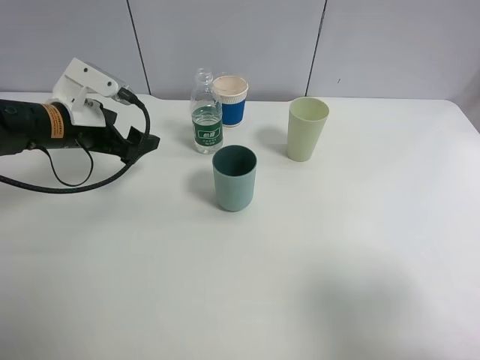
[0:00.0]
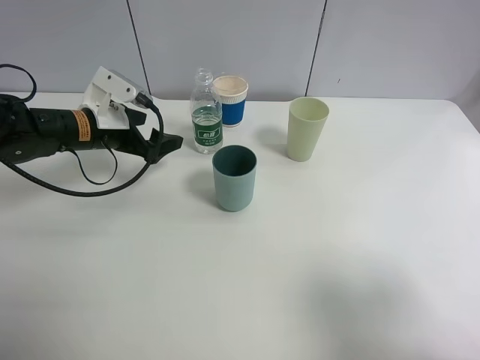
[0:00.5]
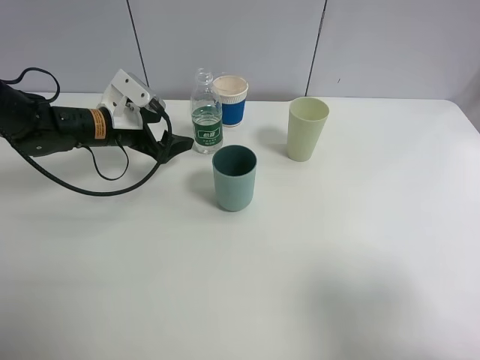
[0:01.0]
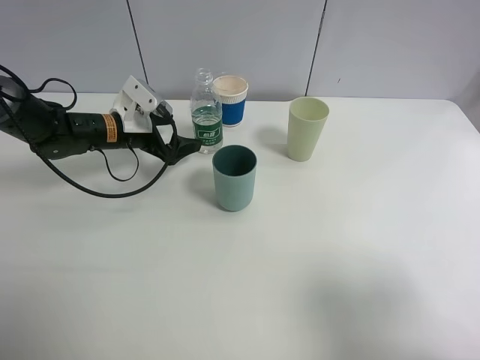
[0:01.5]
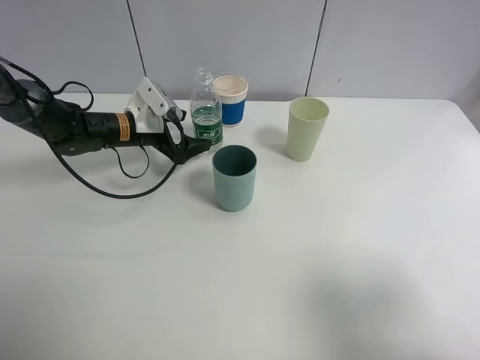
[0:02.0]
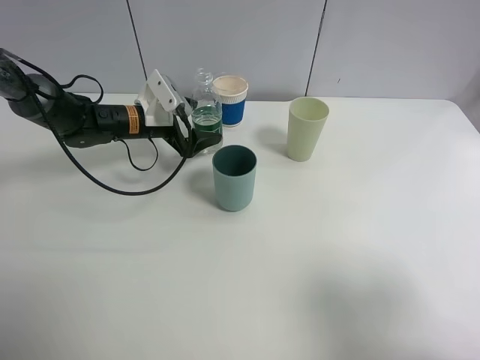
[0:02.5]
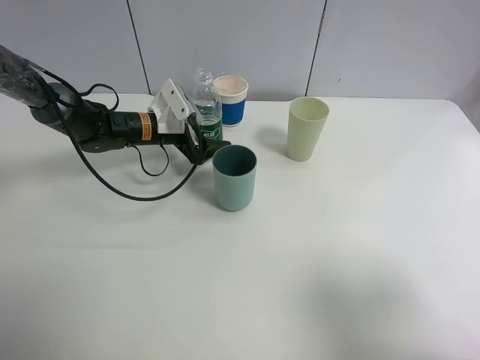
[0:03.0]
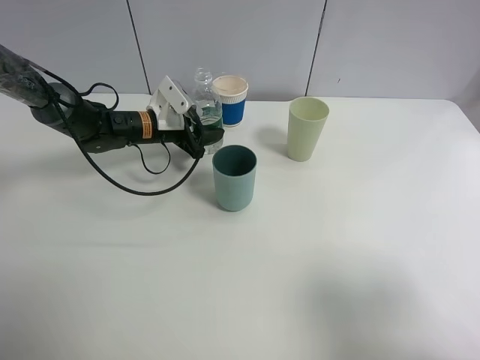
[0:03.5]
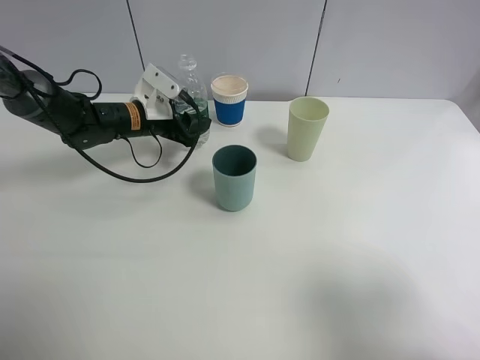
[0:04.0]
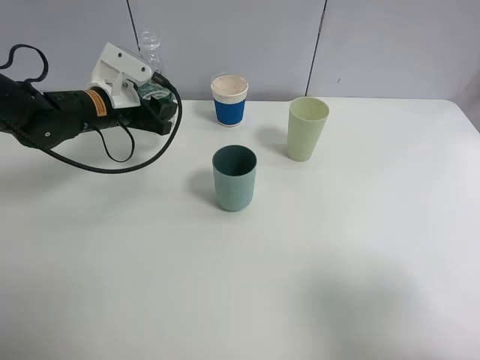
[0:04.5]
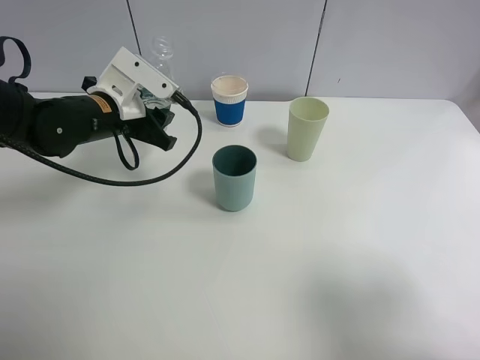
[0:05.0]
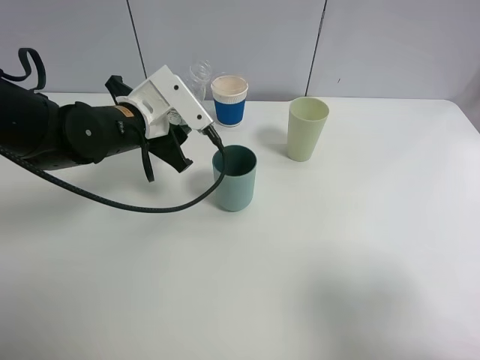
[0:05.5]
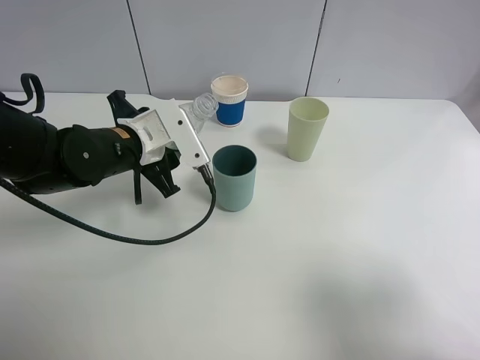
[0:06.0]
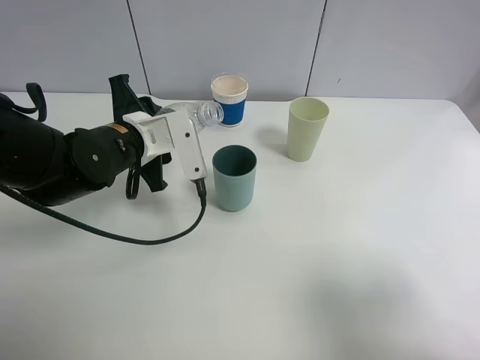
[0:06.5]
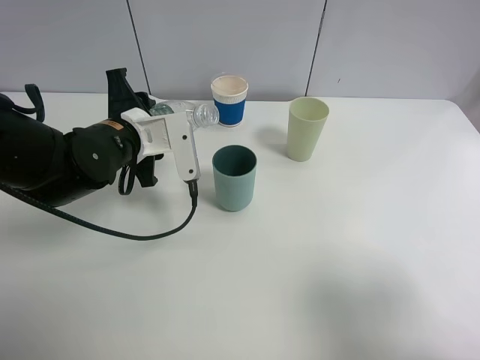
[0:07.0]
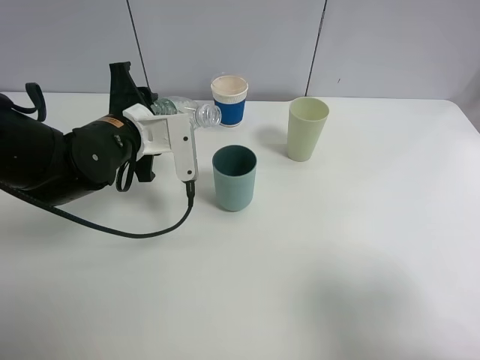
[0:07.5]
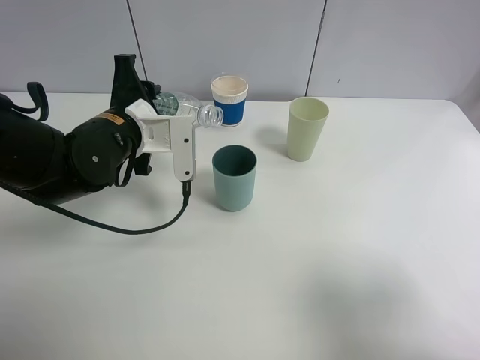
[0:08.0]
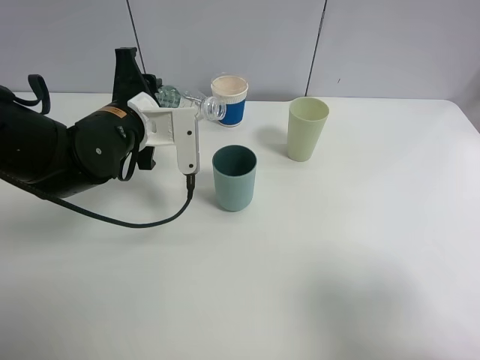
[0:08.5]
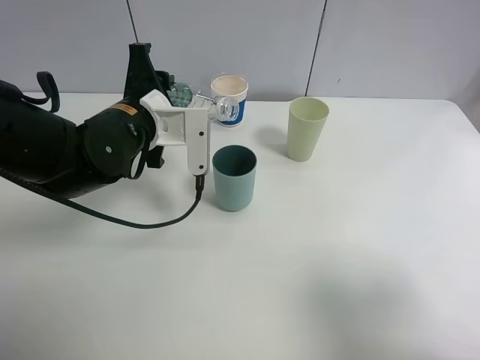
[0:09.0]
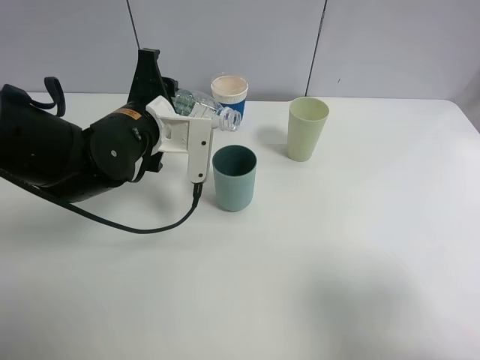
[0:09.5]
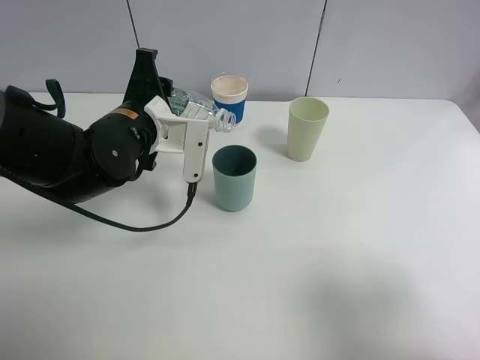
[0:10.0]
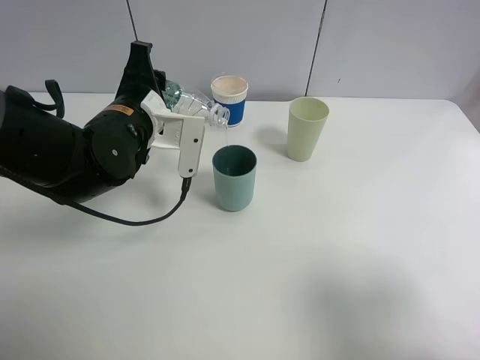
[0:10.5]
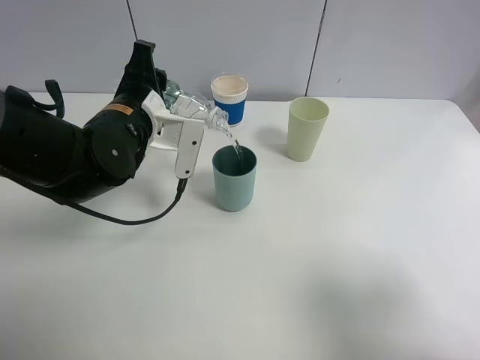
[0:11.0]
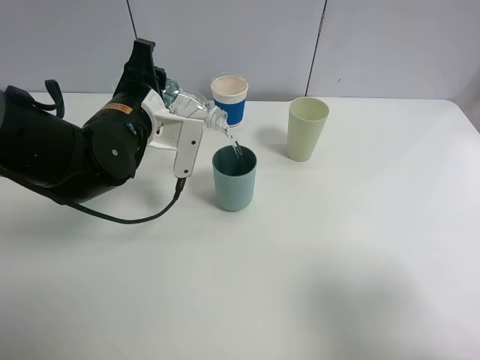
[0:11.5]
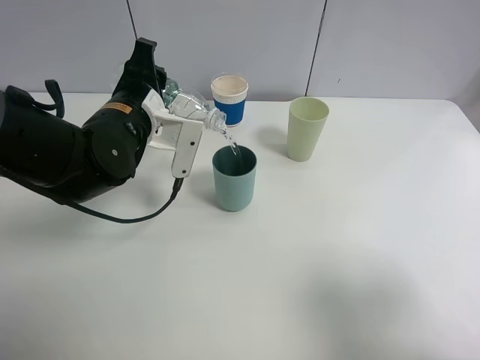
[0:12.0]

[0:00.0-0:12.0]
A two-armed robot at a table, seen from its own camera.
Task of the whole recording: use a clamp to hold the bottle of the drink, pour the beverage into a random cup, then clamp the cup containing the drink and pour the drink into another random cup.
Step, 0:00.0 to 0:04.0: Pick up the water bottle with left gripper.
0:00.0 to 0:02.0: The left gripper travels forward and downward by approximately 10 cm.
0:02.0 to 0:04.0: The left gripper closes.
0:04.0 to 0:06.0: The left gripper moves backward, some 10 cm.
0:08.0 to 0:12.0: There are only small adjustments of the grippers.

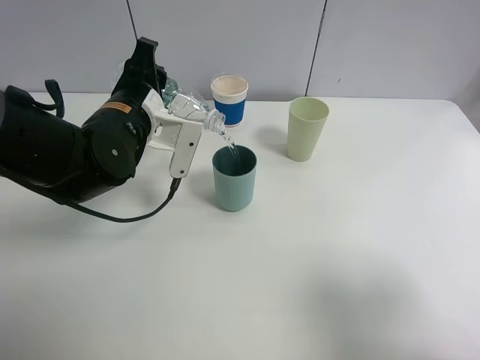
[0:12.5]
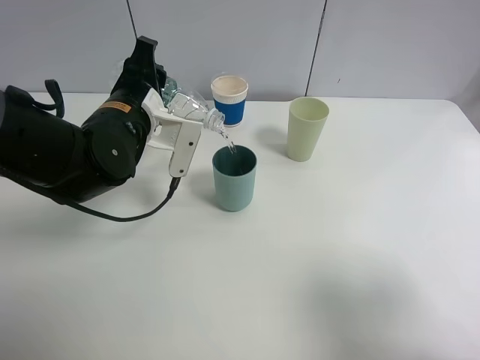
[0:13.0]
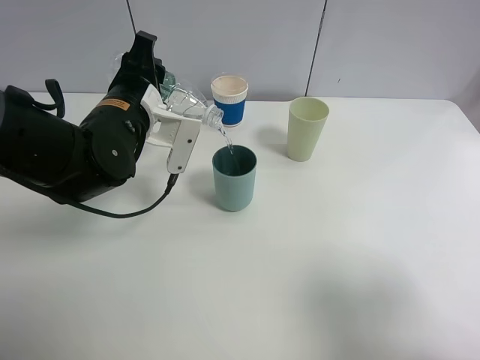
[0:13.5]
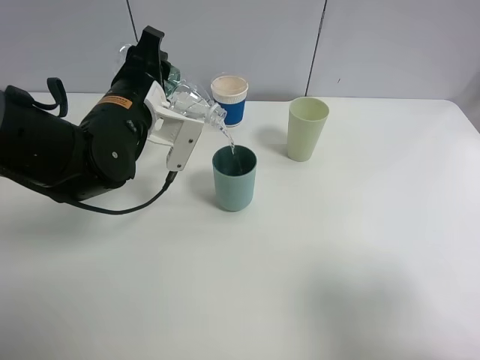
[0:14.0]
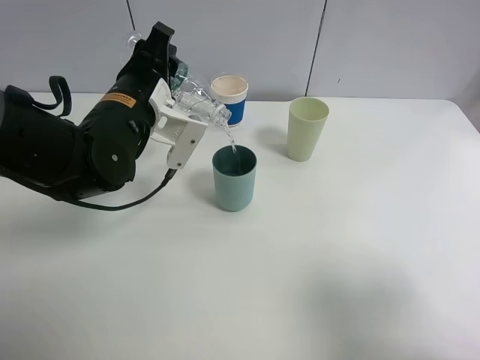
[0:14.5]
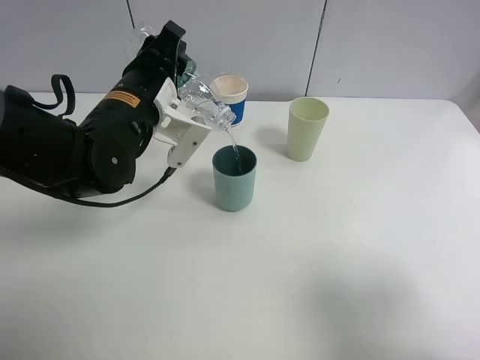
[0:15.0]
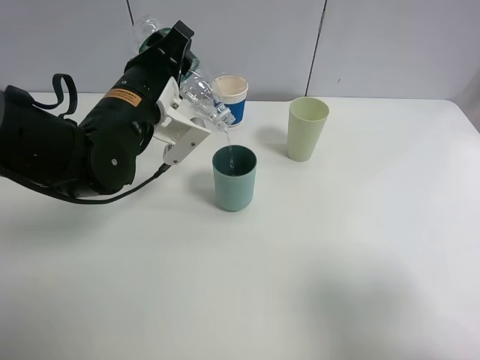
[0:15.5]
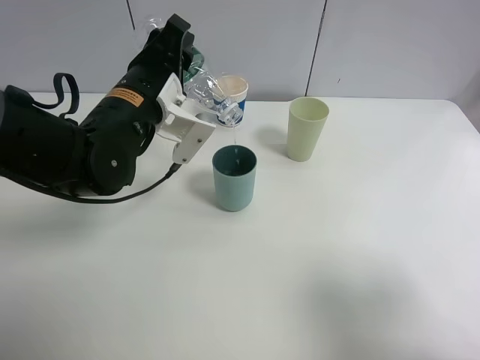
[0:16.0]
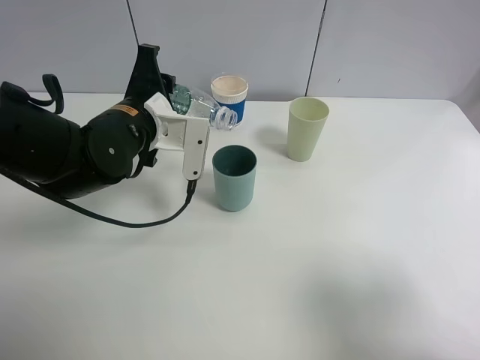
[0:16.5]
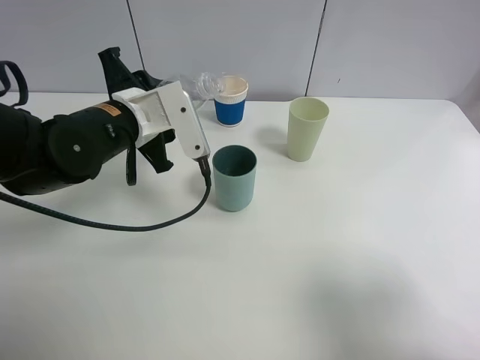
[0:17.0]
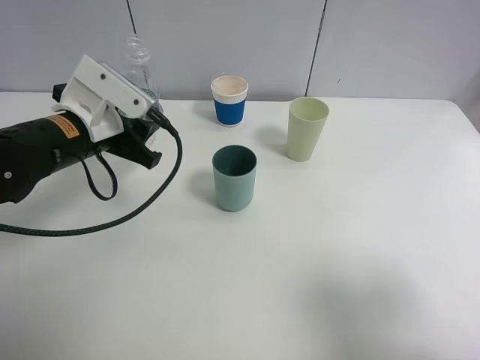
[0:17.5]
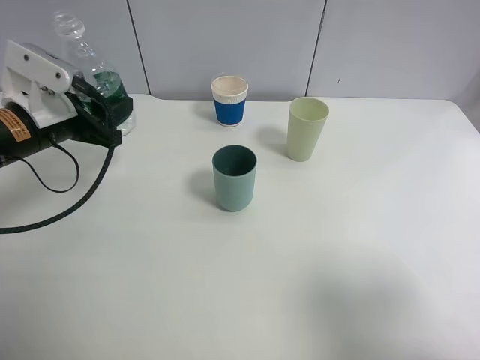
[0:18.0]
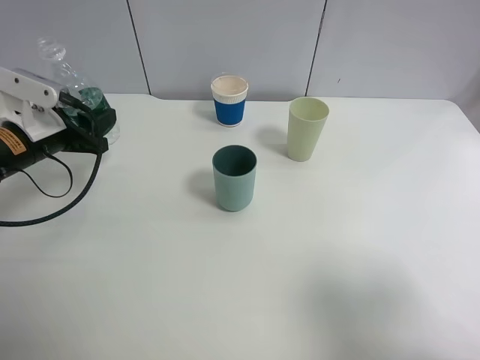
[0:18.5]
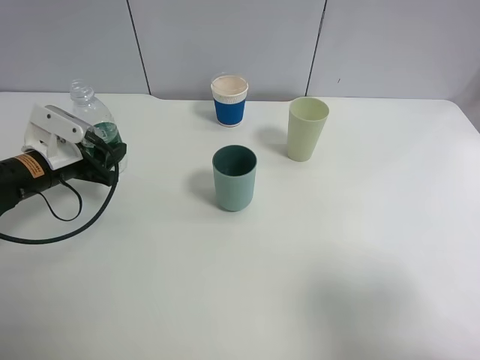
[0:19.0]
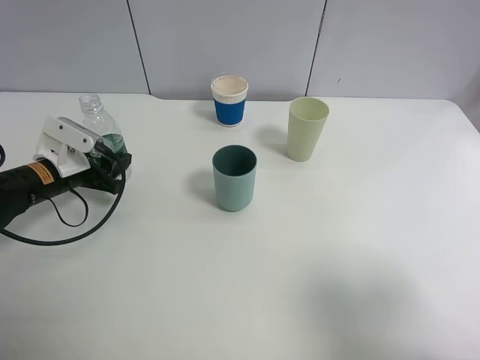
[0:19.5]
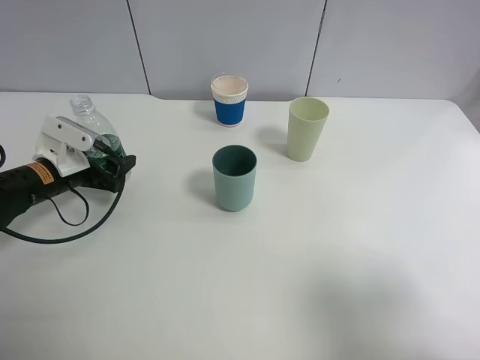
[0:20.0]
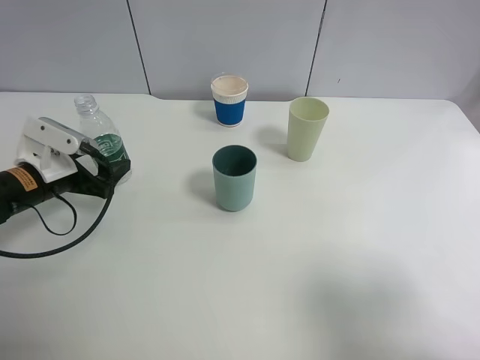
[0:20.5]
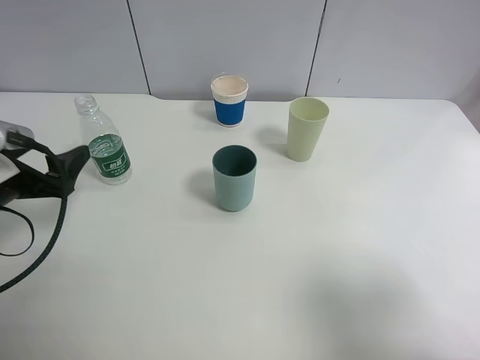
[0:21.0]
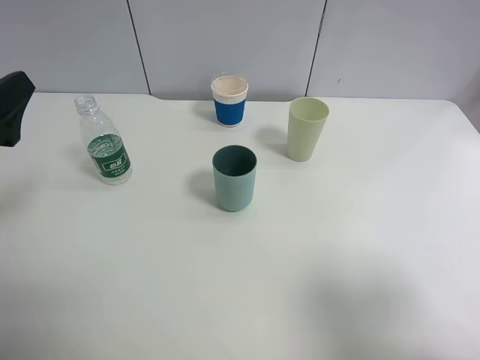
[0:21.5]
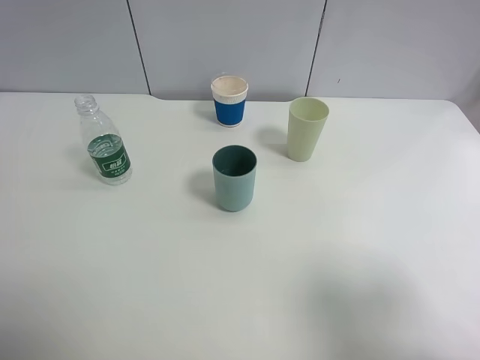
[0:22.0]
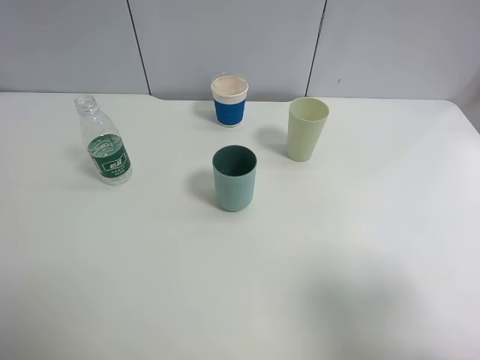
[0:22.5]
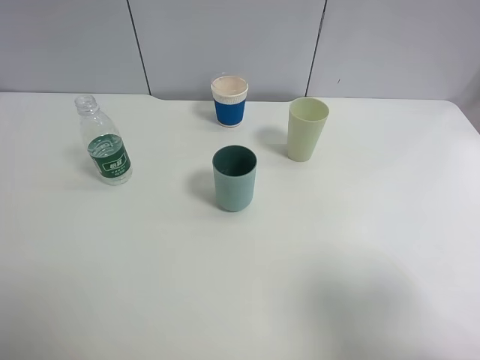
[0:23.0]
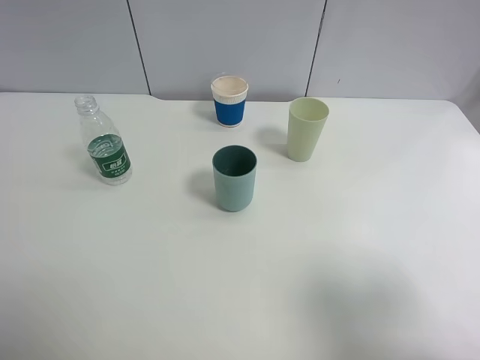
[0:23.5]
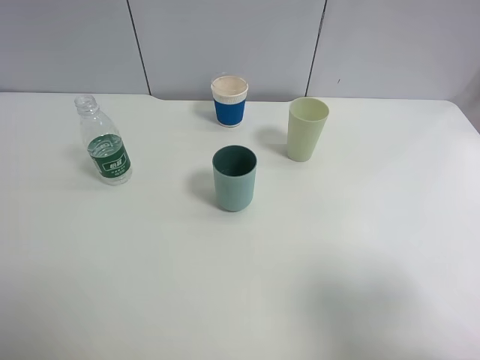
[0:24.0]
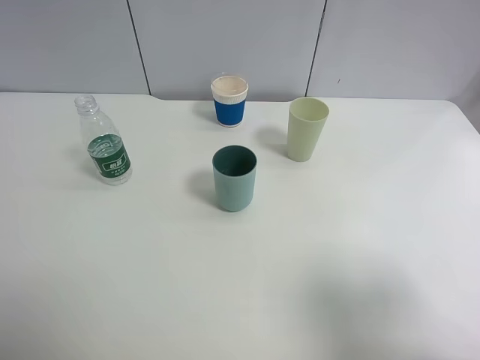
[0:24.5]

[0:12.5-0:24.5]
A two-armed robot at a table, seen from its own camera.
Task of the whole recording: use a clamp to hold the bottle of the drink, pour the beverage into a random cup, then clamp the cup containing the drink and pour the drink into another random cup.
Step, 0:12.5 to 0:16.5: Pour the water into the blue plastic cup with left gripper.
Step, 0:17.0 to 0:20.0: Place the water bottle on the table with left gripper.
0:12.5 to 0:14.5: There are only small adjustments of the grippers.
0:16.5 to 0:18.5: The left gripper heads to the left, covering about 15 cm.
0:18.5 to 0:20.5: The left gripper ends up some 5 cm from where it was, and opens its fingers.
0:20.5 to 0:22.5: The left gripper goes roughly 30 cm upward and backward.

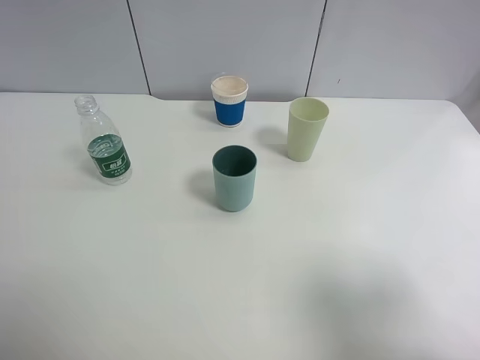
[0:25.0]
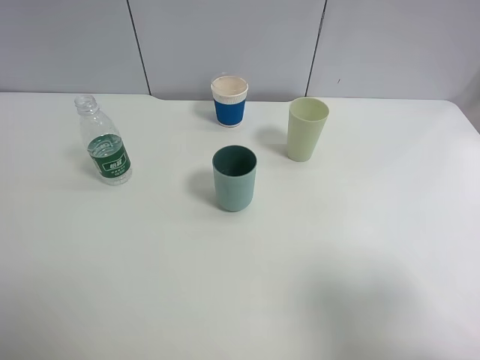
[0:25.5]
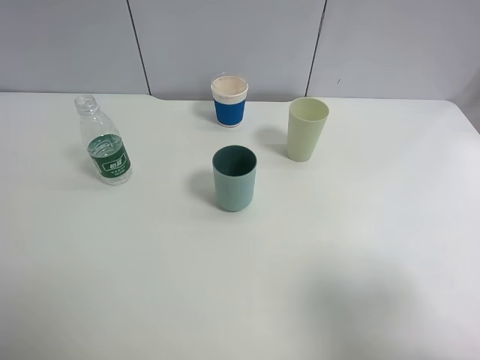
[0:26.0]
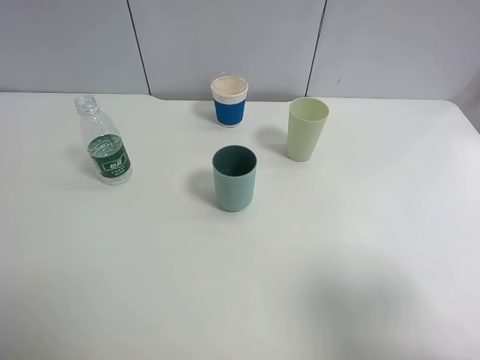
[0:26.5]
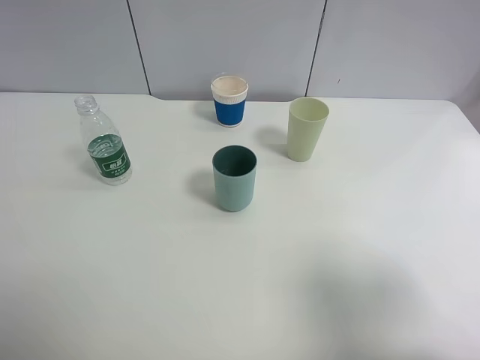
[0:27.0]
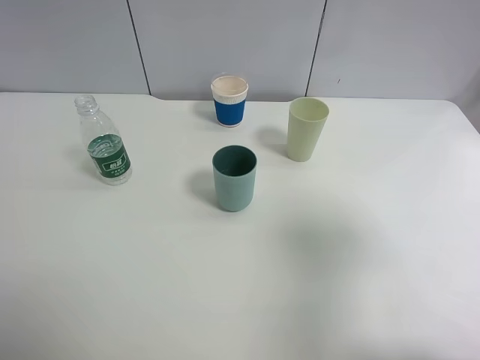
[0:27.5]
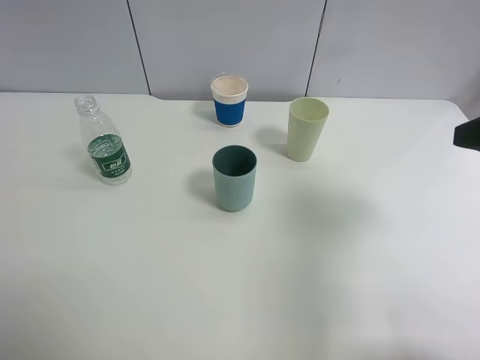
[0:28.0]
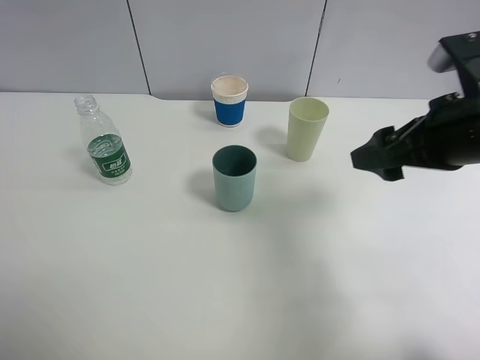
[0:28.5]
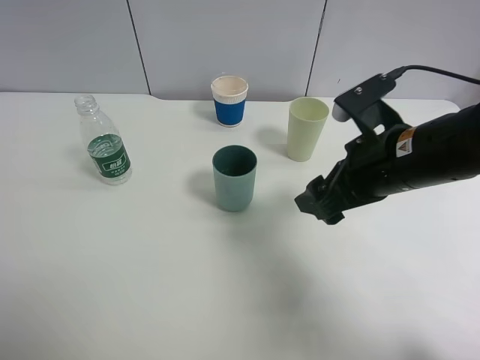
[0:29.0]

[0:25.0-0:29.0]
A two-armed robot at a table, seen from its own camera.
Task of the whole recording: use a clamp to hold the bottle of the drink, pour the beverage into a random cup, then clamp the cup containing the drink and pour the drink into another random cup.
0:27.0 to 0:29.0: The right gripper shifts some 25 cm forward, to the left and downward.
